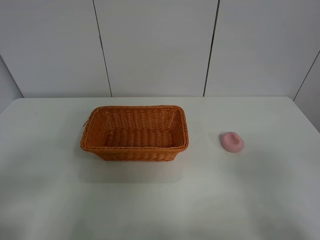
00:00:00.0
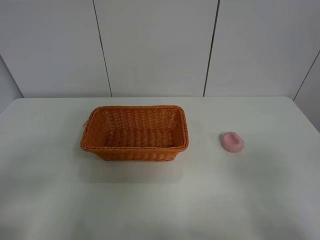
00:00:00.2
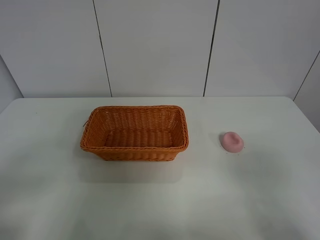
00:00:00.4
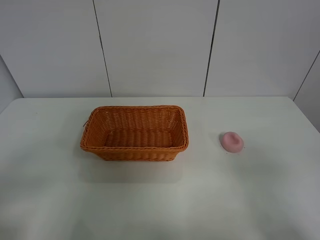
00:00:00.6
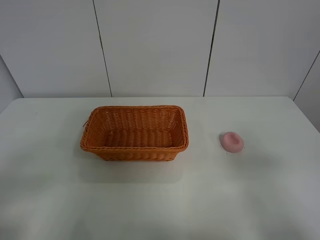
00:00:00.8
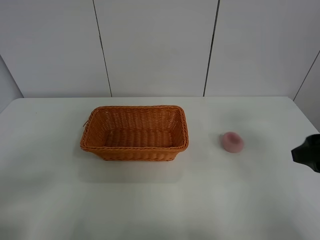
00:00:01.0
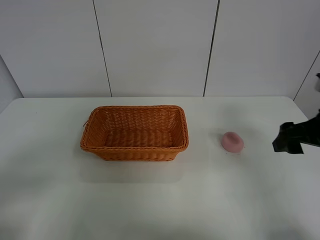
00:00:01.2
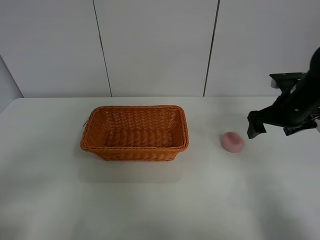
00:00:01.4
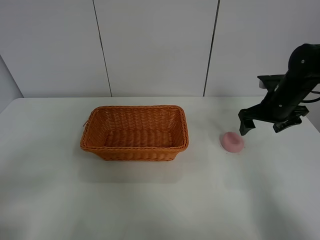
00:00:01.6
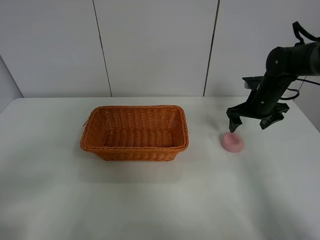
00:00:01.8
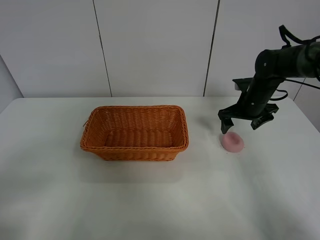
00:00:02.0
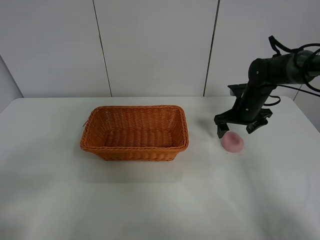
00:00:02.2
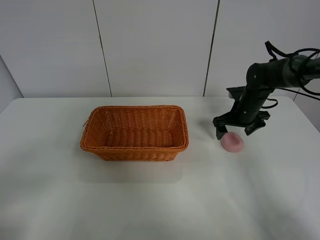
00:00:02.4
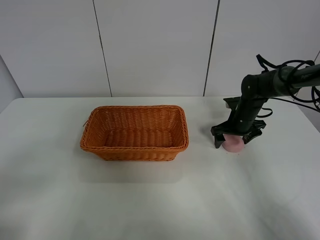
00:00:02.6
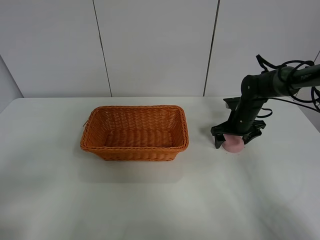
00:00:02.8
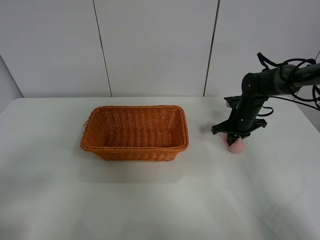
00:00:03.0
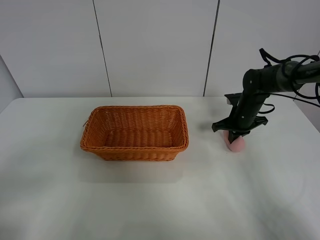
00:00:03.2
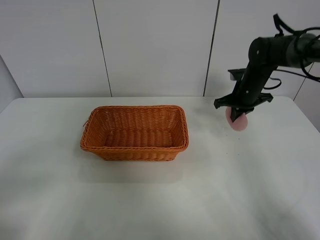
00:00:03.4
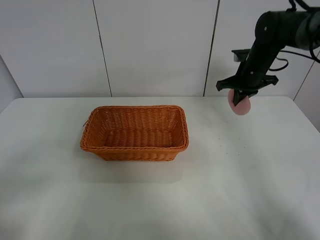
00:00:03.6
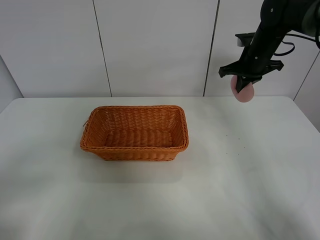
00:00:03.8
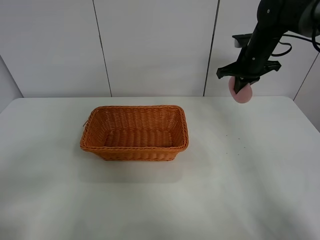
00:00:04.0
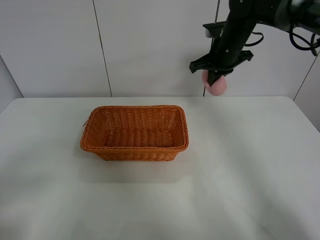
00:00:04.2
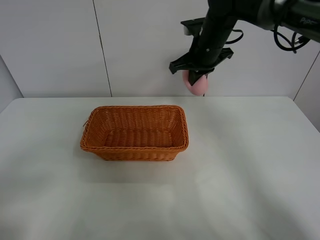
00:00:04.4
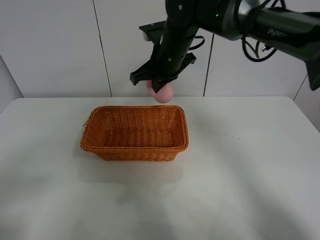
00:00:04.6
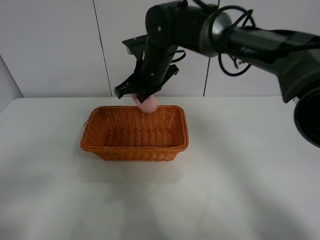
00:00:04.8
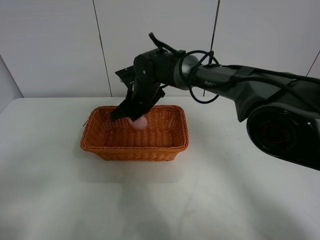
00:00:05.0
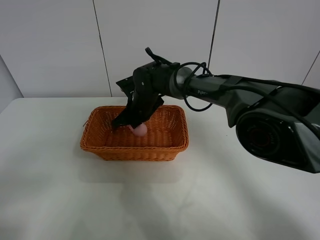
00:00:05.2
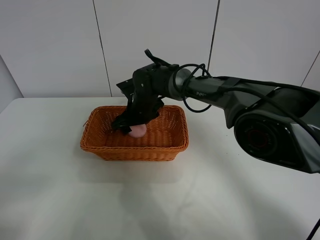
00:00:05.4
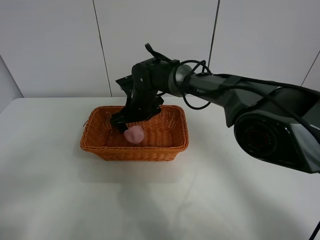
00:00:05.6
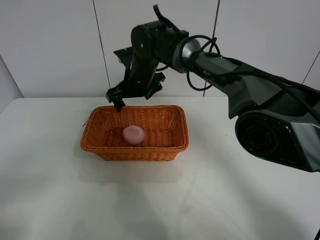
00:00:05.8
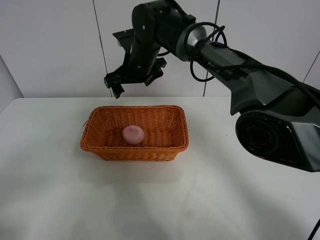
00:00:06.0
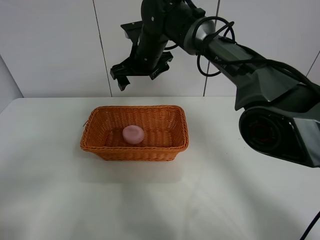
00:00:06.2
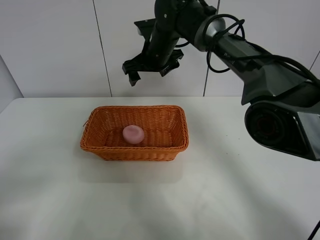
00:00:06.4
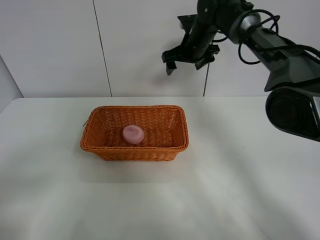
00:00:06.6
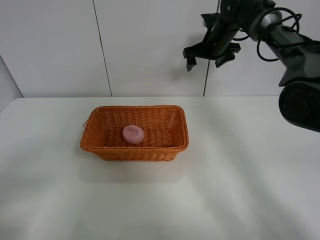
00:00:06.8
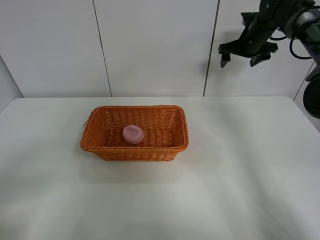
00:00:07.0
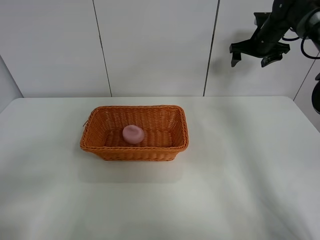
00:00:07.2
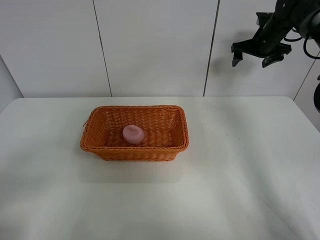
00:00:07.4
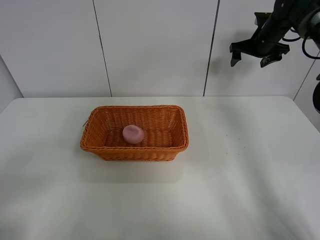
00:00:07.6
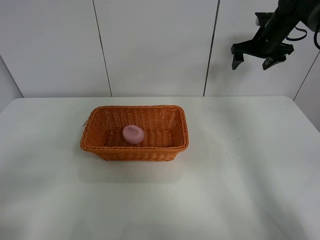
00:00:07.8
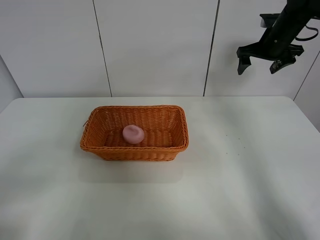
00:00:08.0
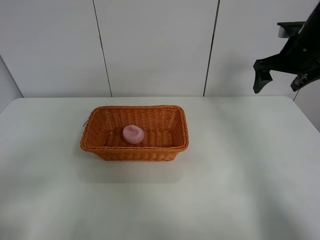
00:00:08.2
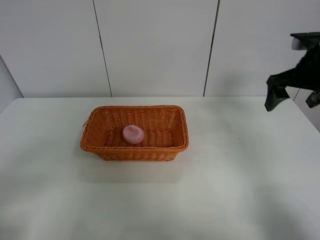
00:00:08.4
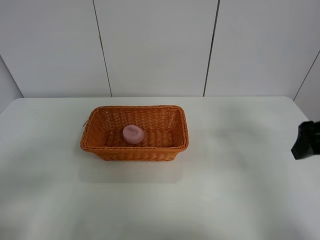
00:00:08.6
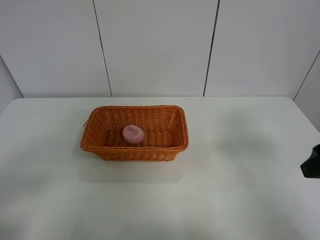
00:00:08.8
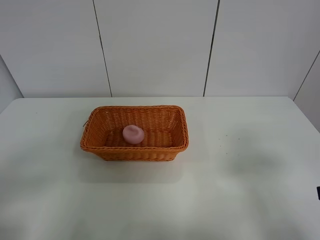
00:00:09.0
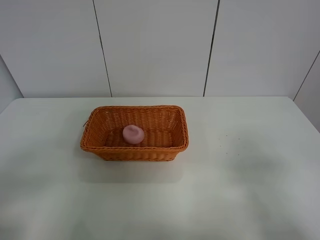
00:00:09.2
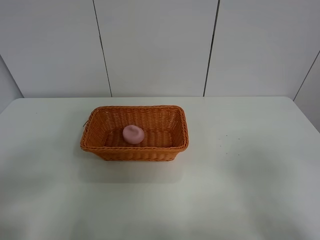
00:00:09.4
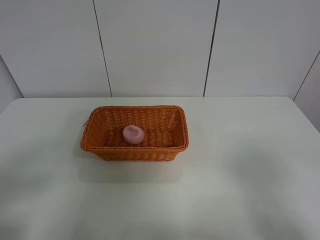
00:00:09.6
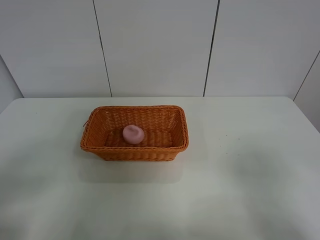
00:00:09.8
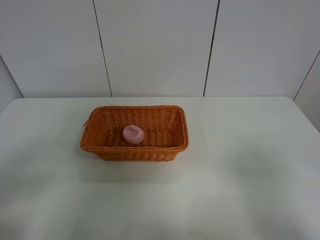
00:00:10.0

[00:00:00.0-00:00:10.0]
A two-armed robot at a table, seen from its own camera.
Step, 00:00:00.0 to 00:00:03.2: Grasp the peach with right gripper.
Step, 00:00:03.4 to 00:00:06.0: Place the peach in the basket with right gripper.
00:00:00.0 to 00:00:01.4: The right gripper heads forward, covering roughly 30 cm.
00:00:01.4 to 00:00:02.8: The right gripper heads downward and forward, covering approximately 15 cm.
00:00:02.8 to 00:00:04.2: The right gripper goes approximately 20 cm upward and to the left, and closes up.
00:00:04.2 to 00:00:05.8: The right gripper heads to the left, covering approximately 20 cm, and opens.
00:00:05.8 to 00:00:07.2: The right gripper heads to the right, covering roughly 35 cm.
00:00:07.2 to 00:00:08.6: The right gripper travels backward by roughly 35 cm.
00:00:08.6 to 00:00:10.0: The right gripper goes about 20 cm backward.
